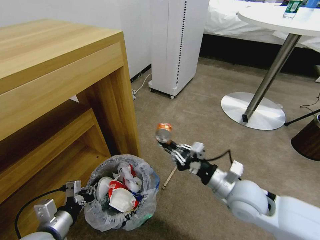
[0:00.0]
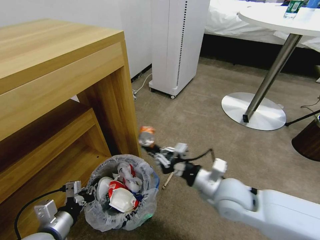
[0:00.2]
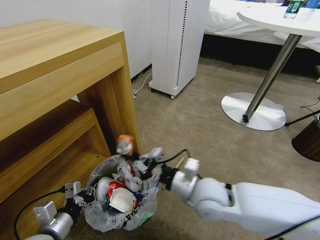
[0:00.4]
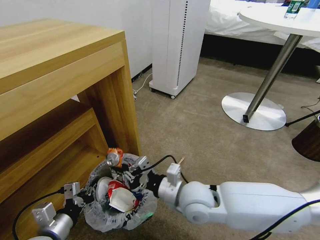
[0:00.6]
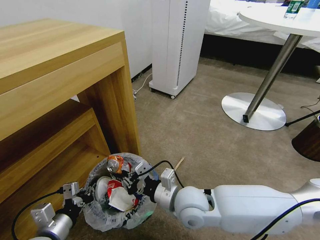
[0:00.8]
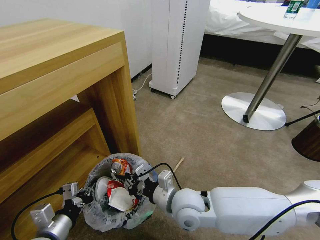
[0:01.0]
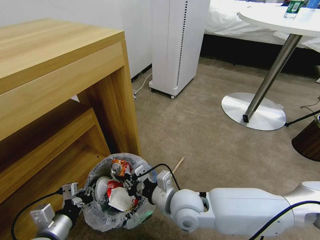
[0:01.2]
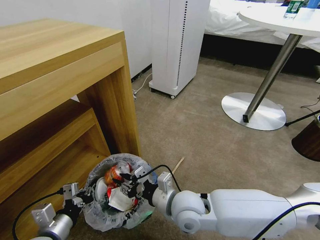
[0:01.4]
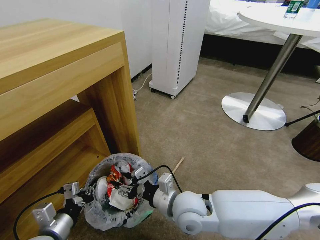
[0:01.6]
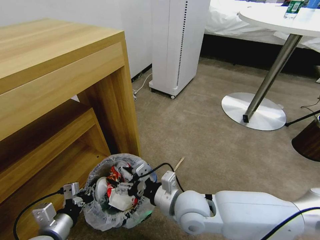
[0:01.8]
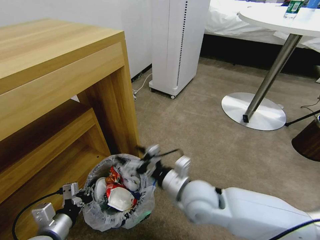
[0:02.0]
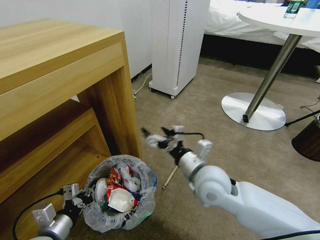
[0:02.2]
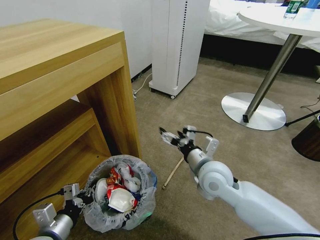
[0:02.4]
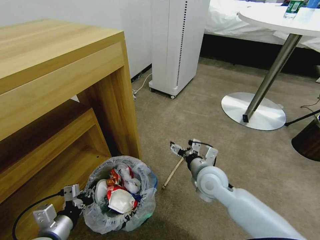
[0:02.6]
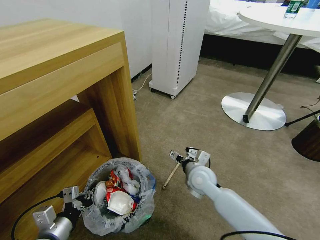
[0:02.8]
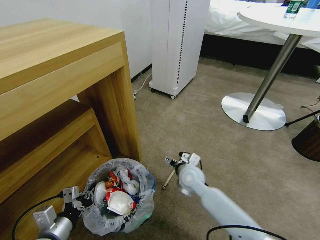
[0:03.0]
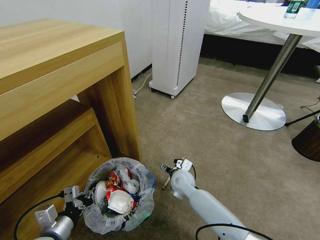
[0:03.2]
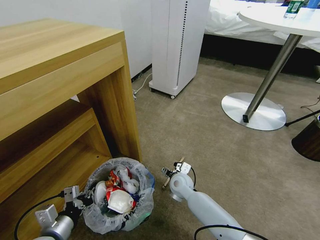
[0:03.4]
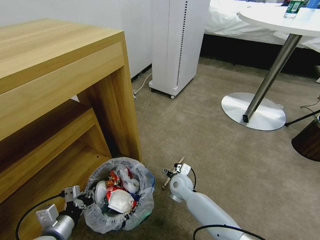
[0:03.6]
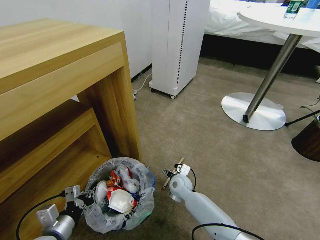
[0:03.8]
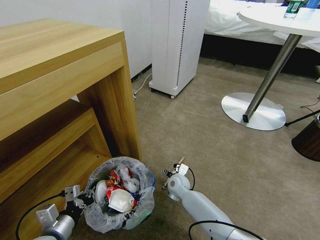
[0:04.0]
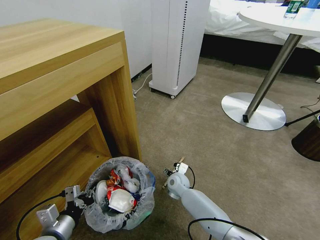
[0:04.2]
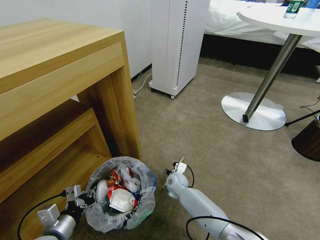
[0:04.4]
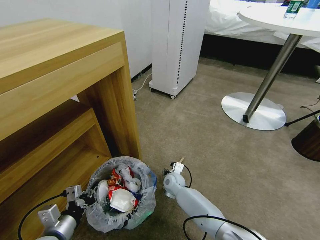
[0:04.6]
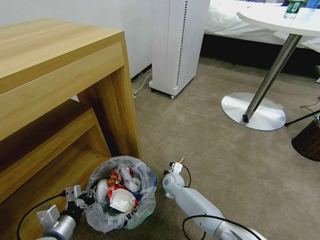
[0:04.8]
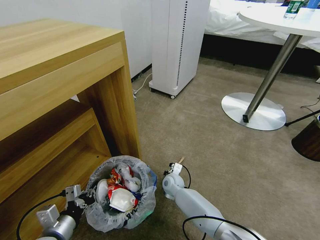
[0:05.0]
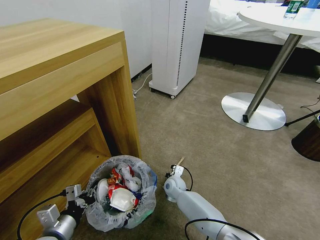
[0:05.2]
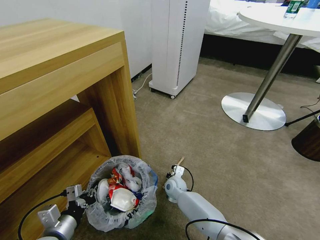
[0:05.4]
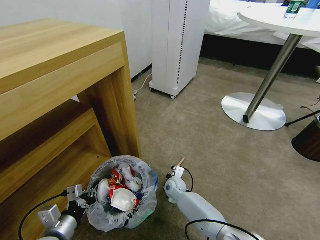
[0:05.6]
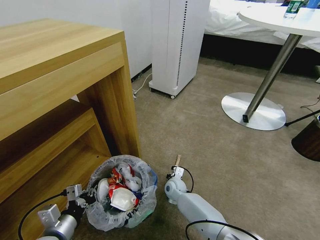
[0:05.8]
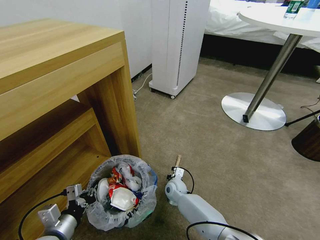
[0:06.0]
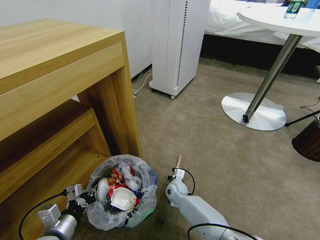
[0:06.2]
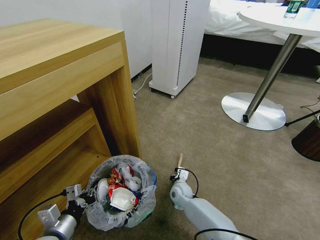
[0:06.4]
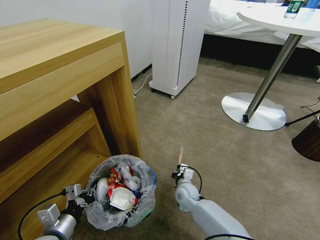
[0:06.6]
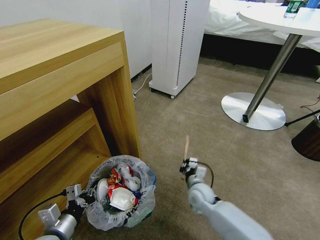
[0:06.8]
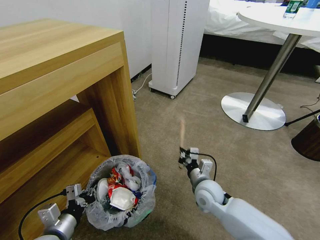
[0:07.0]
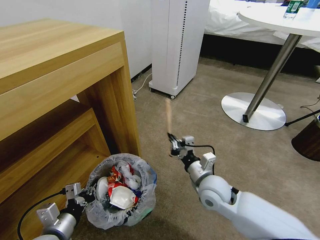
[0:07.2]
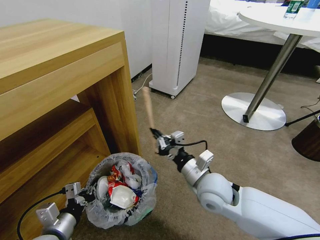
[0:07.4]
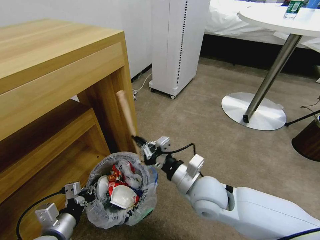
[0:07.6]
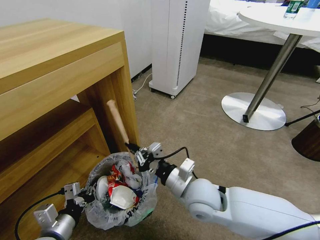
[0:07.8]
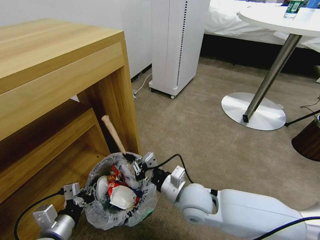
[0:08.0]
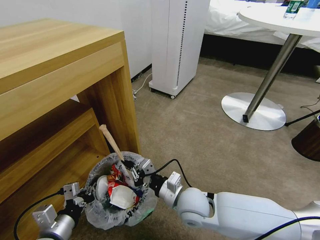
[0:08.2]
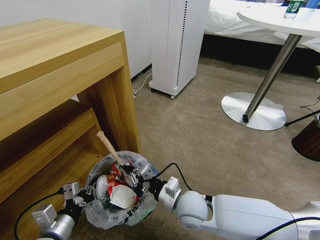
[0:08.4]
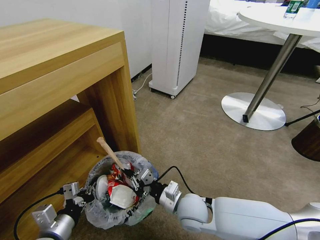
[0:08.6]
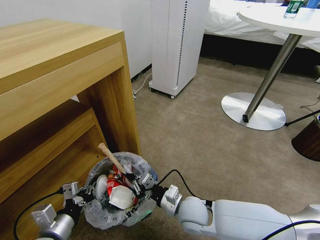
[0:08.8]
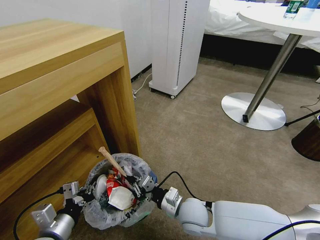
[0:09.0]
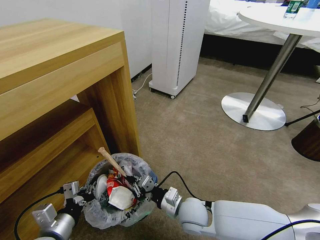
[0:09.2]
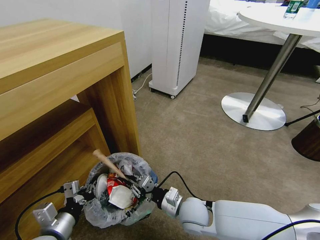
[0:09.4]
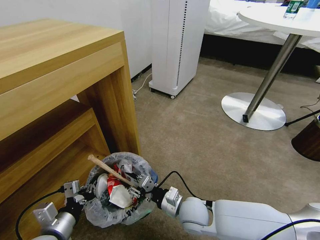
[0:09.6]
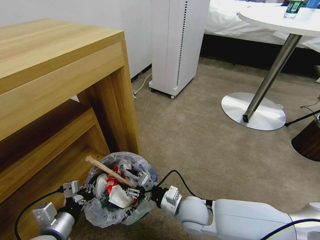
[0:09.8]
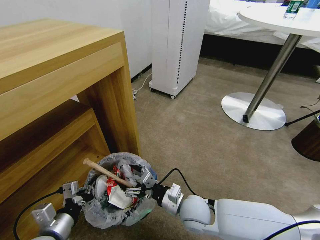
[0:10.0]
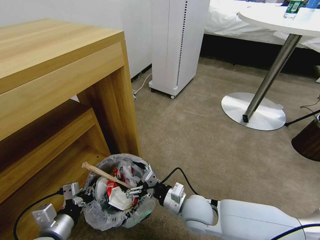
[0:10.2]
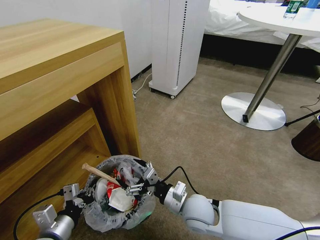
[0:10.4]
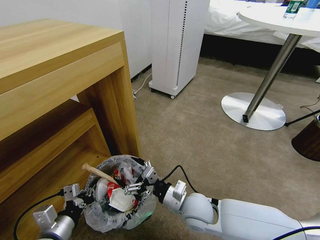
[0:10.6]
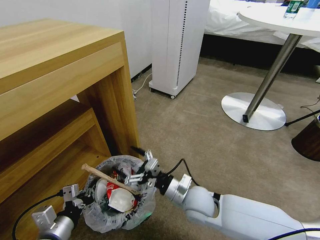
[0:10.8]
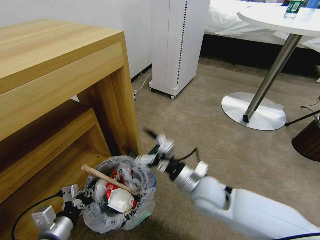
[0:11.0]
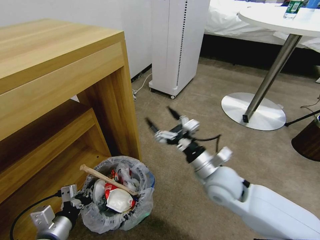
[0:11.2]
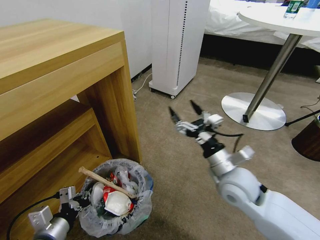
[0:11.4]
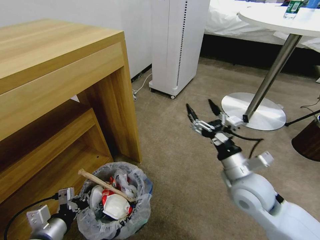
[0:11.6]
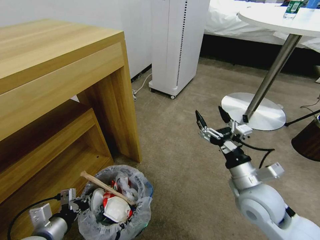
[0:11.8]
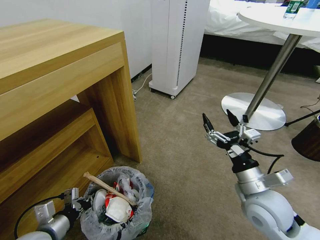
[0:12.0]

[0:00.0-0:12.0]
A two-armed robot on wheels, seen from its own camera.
Task of the whole recording: Pick up the trash bin and place the garbage on the floor into it.
0:00.0 to 0:01.6: The right gripper moves to the left, some 15 cm, and opens up.
0:01.6 to 0:03.0: The right gripper travels forward and downward by about 15 cm, and opens up.
0:03.0 to 0:04.4: The right gripper shifts approximately 10 cm downward.
0:04.4 to 0:06.0: The right gripper closes up.
0:06.0 to 0:07.6: The right gripper shifts some 30 cm upward and backward.
0:07.6 to 0:09.0: The right gripper moves downward, roughly 10 cm.
0:09.0 to 0:10.4: The right gripper opens up.
0:10.4 to 0:12.0: The right gripper travels to the right and upward by roughly 20 cm.

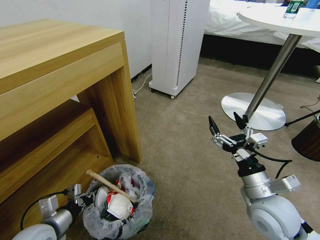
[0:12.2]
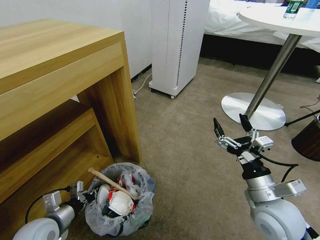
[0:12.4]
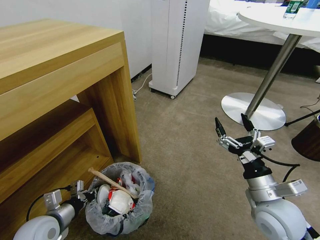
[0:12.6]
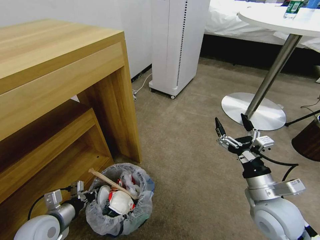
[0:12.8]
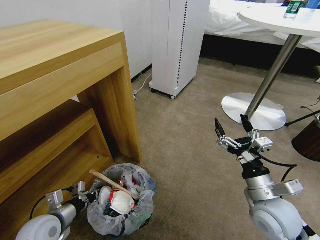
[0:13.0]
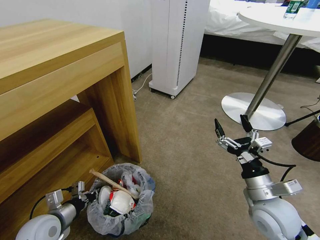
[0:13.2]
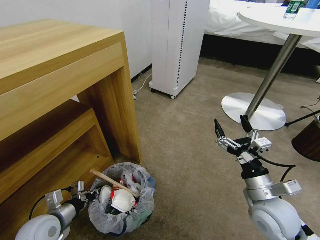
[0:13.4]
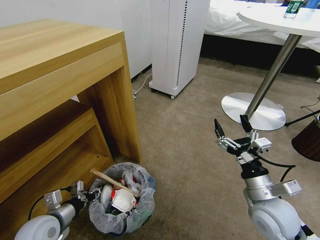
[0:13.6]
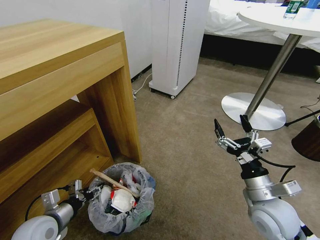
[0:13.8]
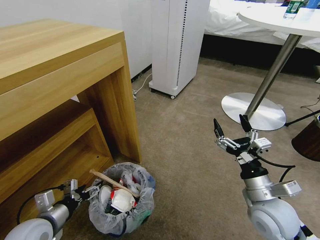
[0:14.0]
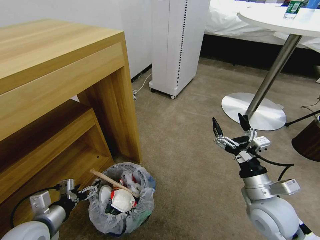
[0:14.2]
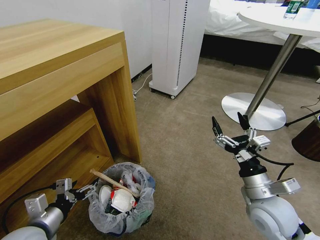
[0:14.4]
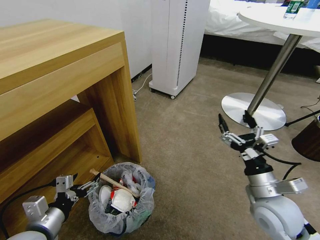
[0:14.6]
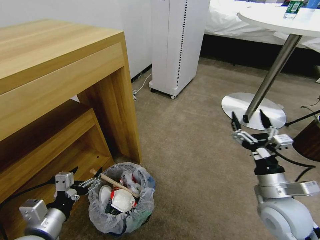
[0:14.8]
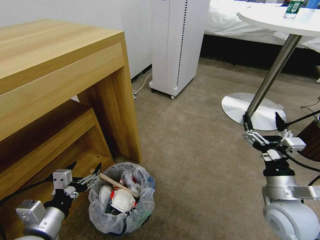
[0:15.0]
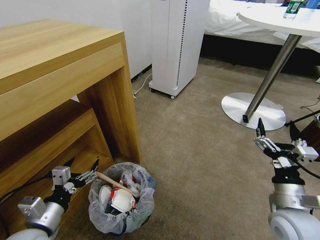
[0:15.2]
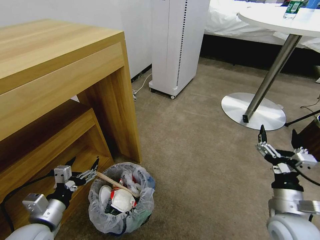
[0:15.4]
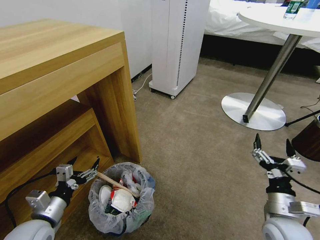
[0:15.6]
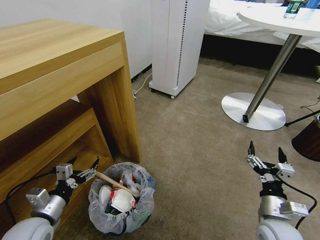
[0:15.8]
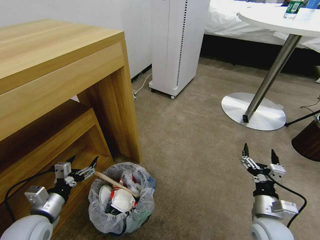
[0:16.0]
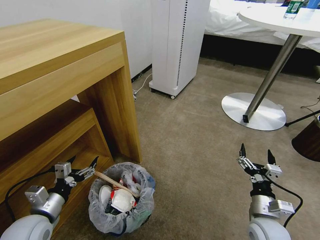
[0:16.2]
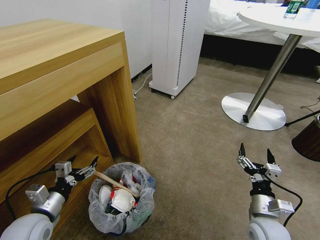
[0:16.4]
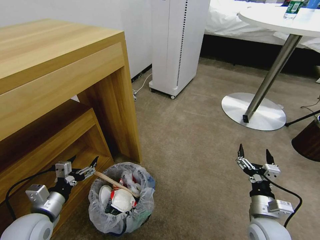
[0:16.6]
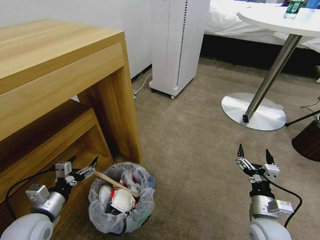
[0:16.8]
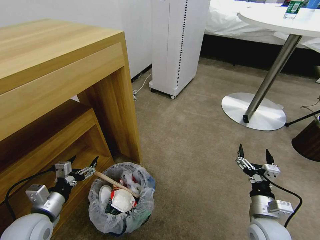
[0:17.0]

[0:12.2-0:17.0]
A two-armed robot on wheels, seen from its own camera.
Task of the whole recording: Pick up the trash bin and place the garbage on the floor into it.
0:12.2 to 0:13.8: The left gripper opens.
0:13.8 to 0:15.4: The right gripper shifts by some 5 cm.
0:15.4 to 0:17.0: The right gripper moves downward, roughly 5 cm.
